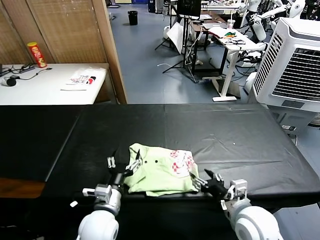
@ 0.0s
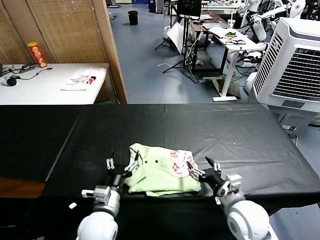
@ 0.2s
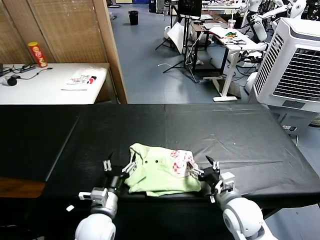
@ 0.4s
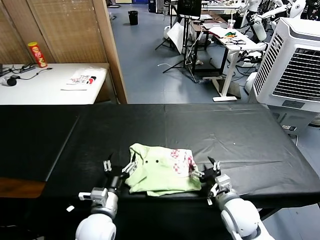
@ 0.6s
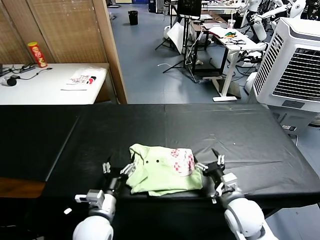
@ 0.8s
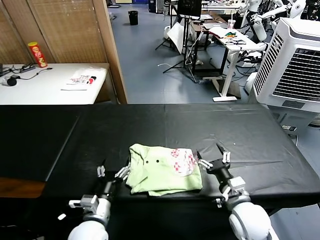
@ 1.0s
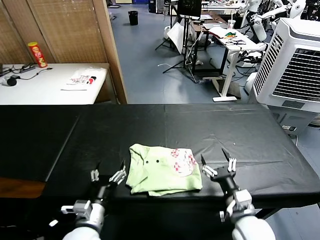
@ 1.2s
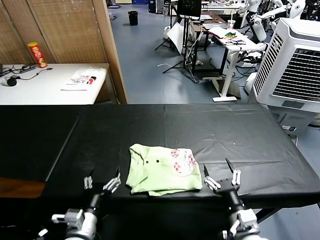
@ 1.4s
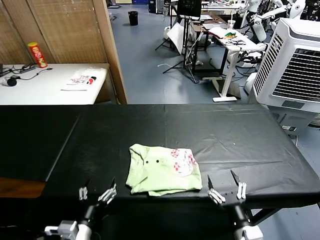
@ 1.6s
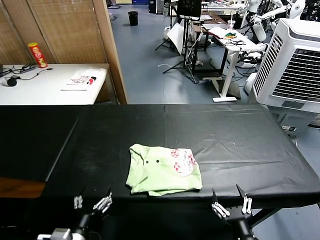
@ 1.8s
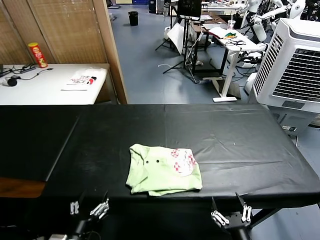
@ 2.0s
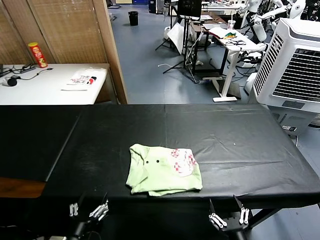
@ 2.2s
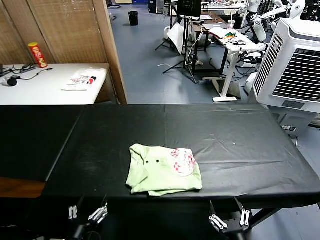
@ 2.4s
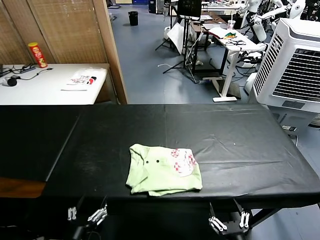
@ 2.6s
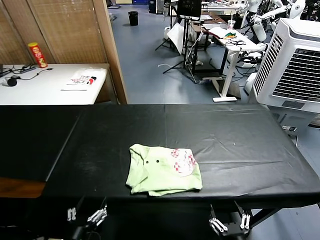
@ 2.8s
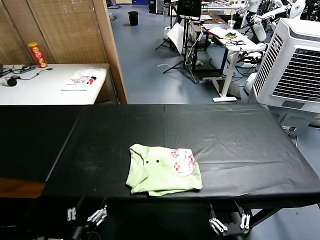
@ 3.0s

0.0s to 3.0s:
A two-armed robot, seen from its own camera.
Task of the whole recording: fold and organize the clothes.
0.0s to 1.6s: The left gripper moves backward and to the left, some 10 cm, while the right gripper travels backward and downward by about 10 cm.
1.6s to 3.0s: Both grippers travel together backward, about 5 cm.

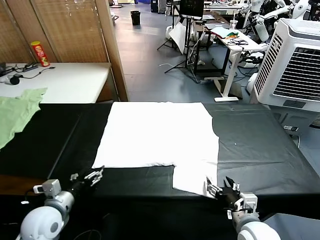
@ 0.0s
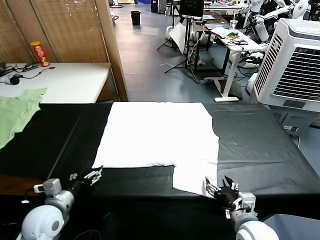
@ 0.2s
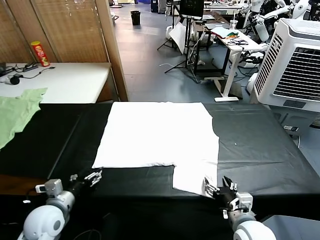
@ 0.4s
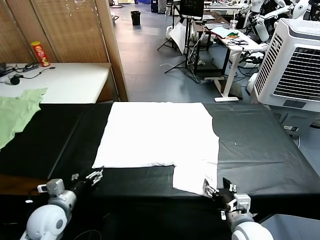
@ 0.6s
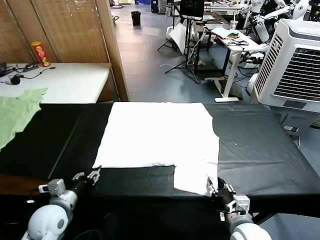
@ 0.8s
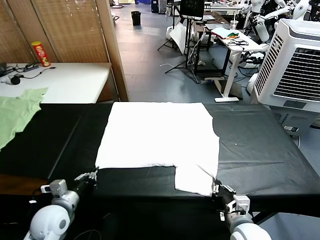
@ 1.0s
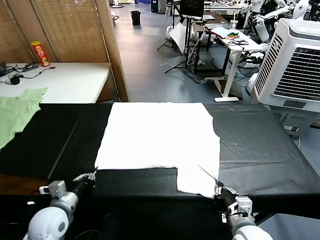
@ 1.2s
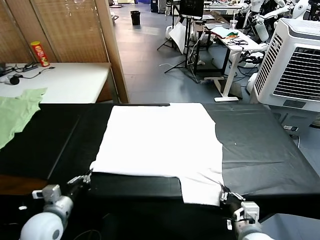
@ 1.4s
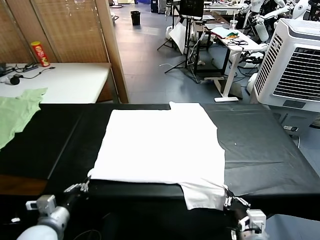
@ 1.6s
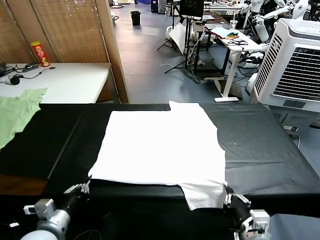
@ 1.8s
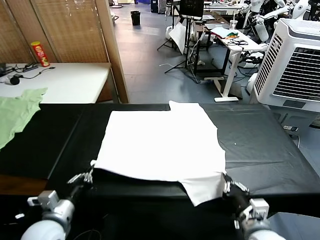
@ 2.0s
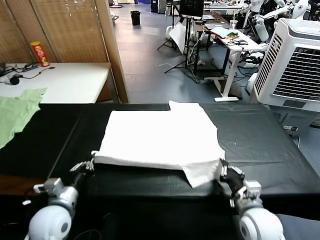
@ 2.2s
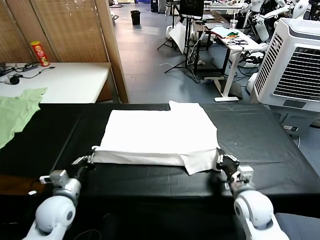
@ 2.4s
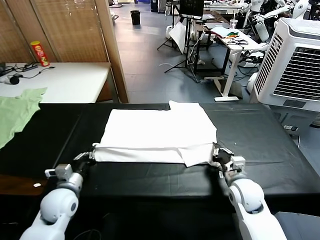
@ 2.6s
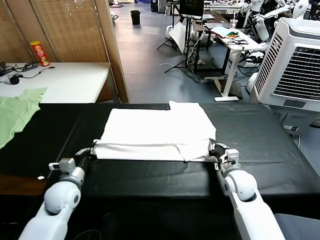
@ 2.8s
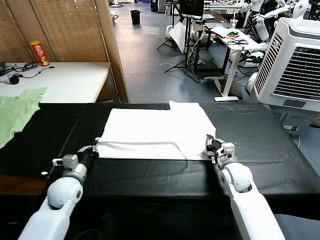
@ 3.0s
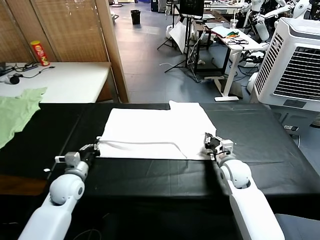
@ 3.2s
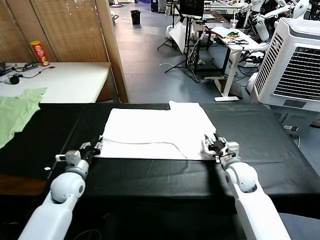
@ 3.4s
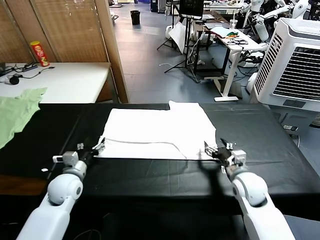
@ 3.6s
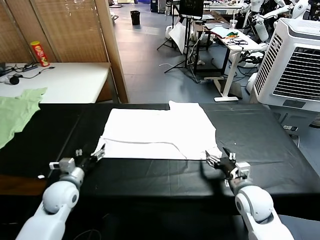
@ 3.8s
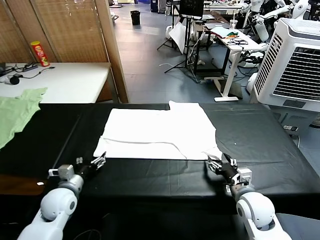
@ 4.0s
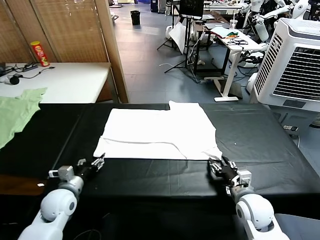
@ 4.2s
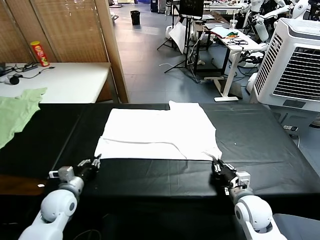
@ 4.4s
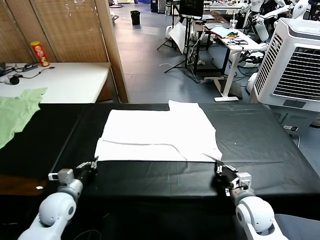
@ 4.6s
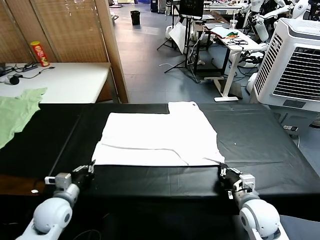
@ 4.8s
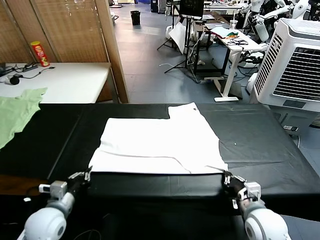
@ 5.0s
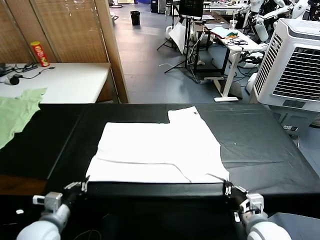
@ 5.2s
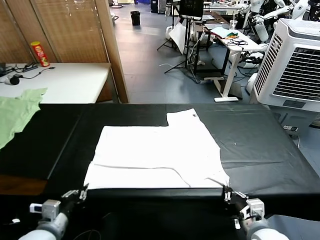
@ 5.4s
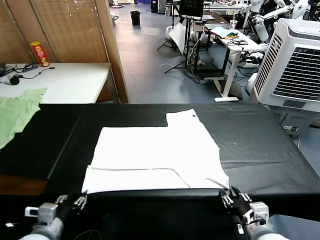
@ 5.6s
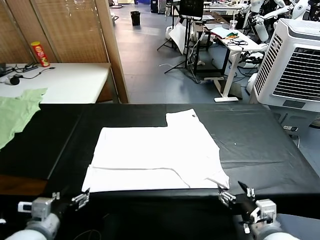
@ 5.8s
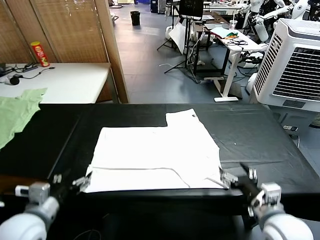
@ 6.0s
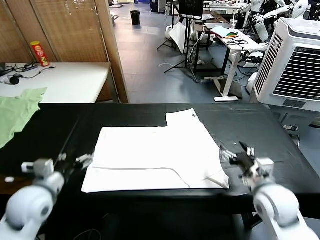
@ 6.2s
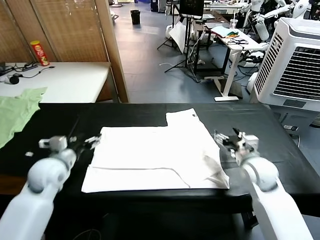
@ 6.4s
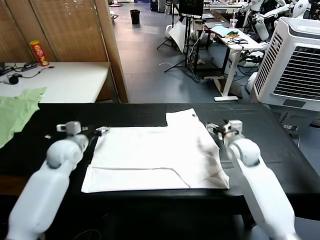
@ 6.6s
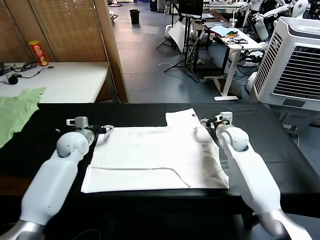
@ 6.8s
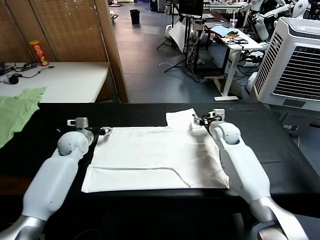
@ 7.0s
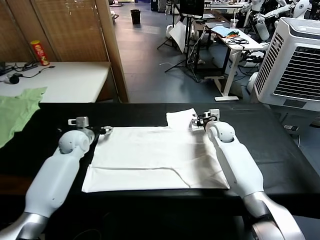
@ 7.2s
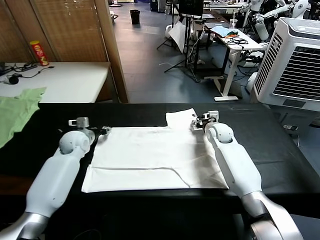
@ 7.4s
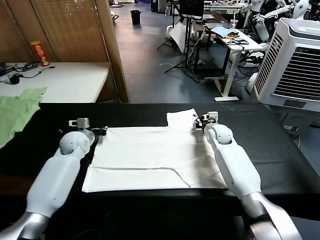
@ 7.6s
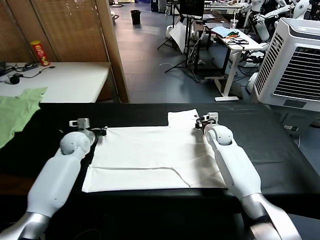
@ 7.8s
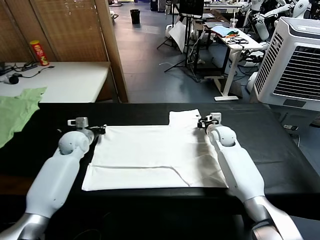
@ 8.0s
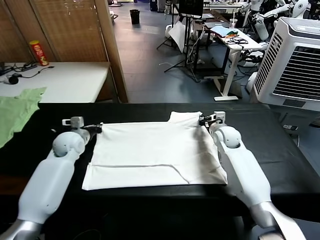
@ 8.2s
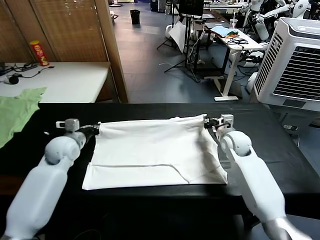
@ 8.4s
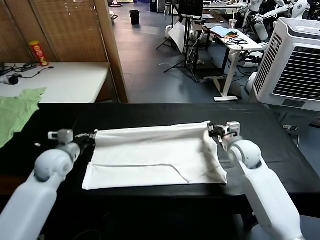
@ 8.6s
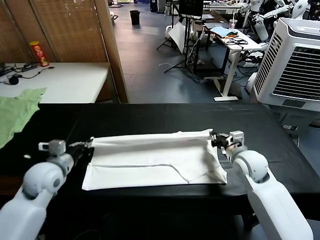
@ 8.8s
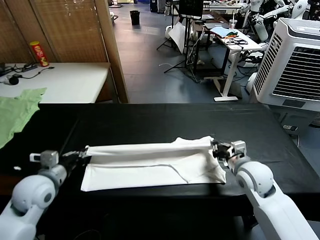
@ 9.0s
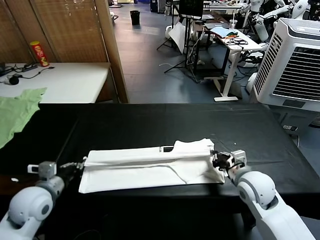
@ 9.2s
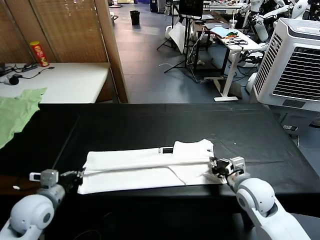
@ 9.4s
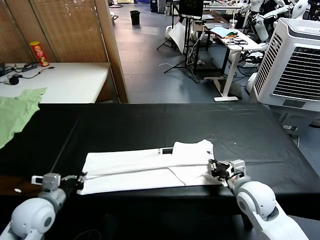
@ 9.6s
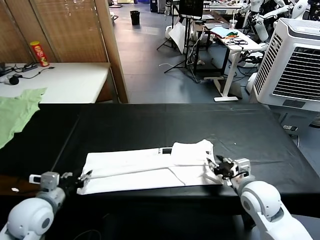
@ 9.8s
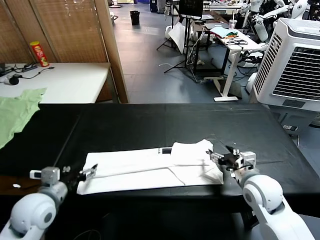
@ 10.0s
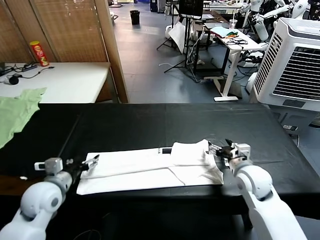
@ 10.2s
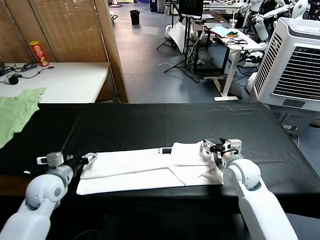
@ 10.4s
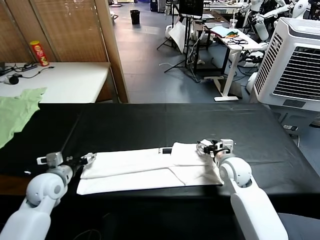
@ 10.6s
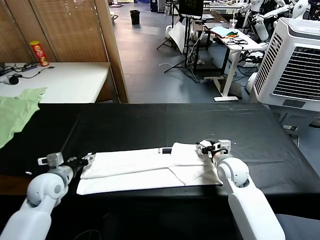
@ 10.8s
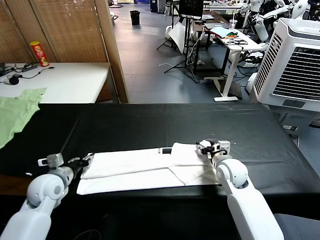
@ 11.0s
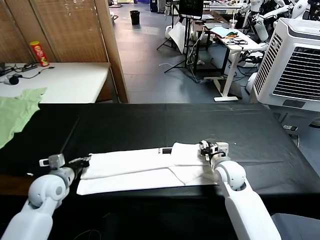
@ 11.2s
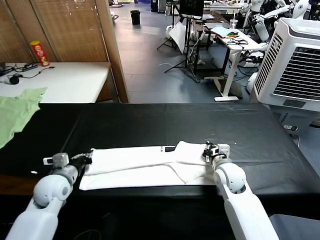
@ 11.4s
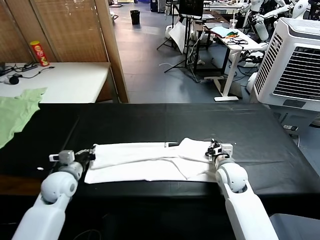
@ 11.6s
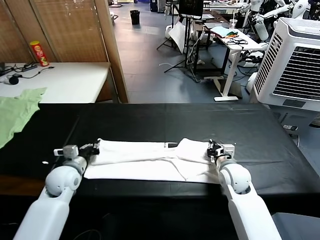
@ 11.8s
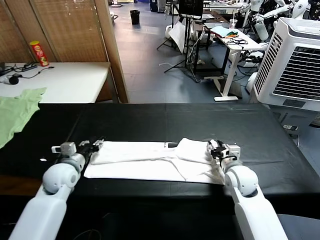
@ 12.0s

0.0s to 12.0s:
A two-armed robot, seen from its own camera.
Task of the whole recording: fold and organize the clothes.
Step, 0.0s to 1.0s: use both grippers simultaneously to clamp the lower edge of the clothing fabric.
Step, 1.4s to 3.6s: use both grippers to drag the lower edge of the fabric forward and fold it over the upper edge.
Step, 3.8s to 5.6s: Drag the clothes downward with both gripper.
Step, 6.0s to 7.6s: use both grippers simultaneously to clamp the upper edge of the clothing fabric.
Step, 7.8s to 9.8s: use both grippers to drag the upper edge of the fabric backward and fold it over the lower edge.
1.6s to 3.0s: The two grippers go approximately 20 cm forward.
3.0s to 4.4s: The left gripper travels backward by some 5 cm, and opens, then closes again, while the right gripper is displaced backward by about 15 cm, and opens, then closes once more.
4.4s to 6.0s: The left gripper heads upward and backward, covering some 15 cm, and opens; the right gripper moves upward, about 10 cm, reaches about 10 cm backward, then returns, and opens up.
6.0s to 7.6s: Both grippers move forward, roughly 25 cm. The left gripper closes its fingers. The right gripper closes.
7.6s to 9.0s: Both grippers travel together backward, about 25 cm.
9.0s to 10.4s: The left gripper changes place by some 5 cm, and opens. The right gripper moves forward, some 5 cm, and opens.
10.4s to 12.0s: The right gripper closes and opens again. Meanwhile the left gripper closes and opens again.

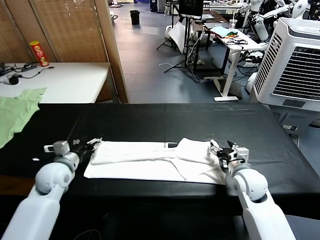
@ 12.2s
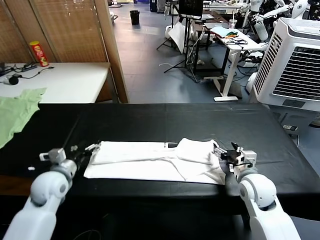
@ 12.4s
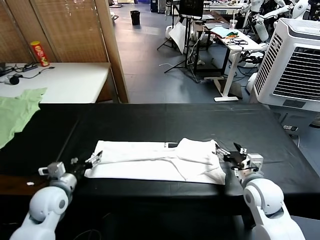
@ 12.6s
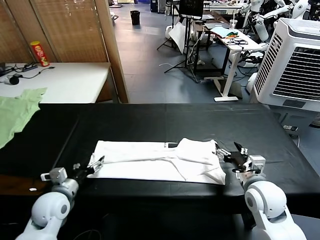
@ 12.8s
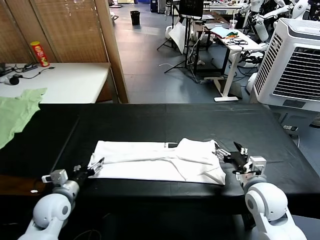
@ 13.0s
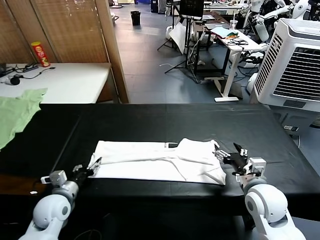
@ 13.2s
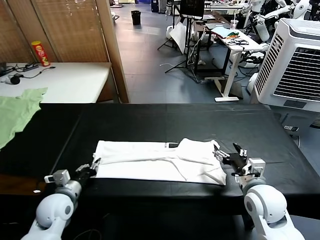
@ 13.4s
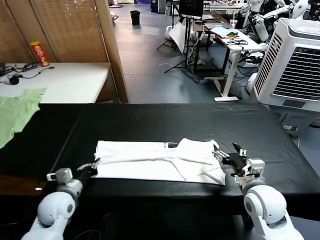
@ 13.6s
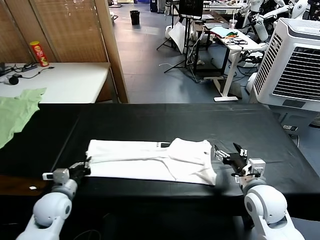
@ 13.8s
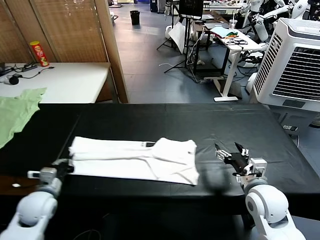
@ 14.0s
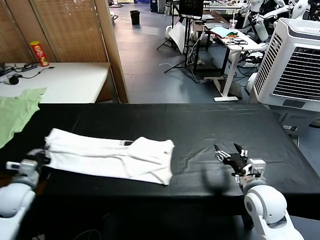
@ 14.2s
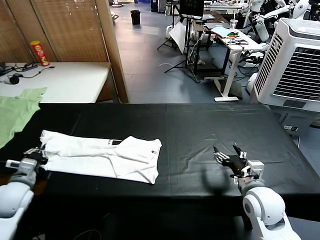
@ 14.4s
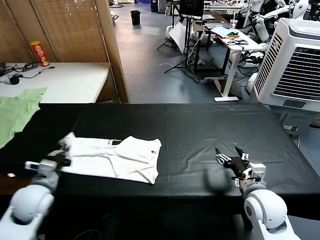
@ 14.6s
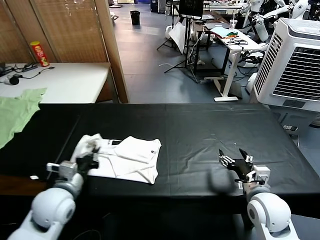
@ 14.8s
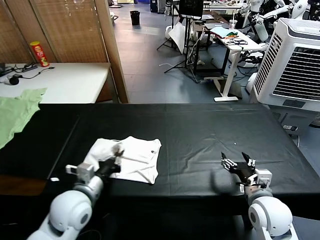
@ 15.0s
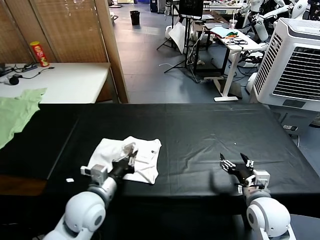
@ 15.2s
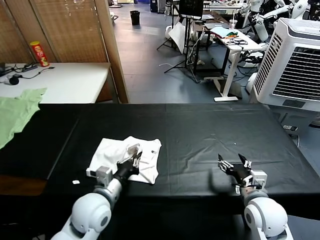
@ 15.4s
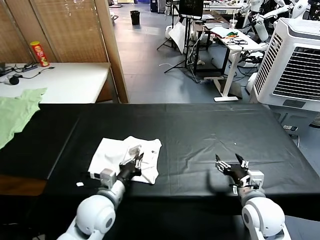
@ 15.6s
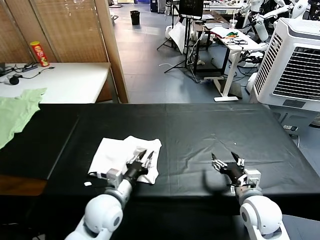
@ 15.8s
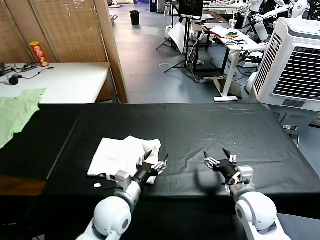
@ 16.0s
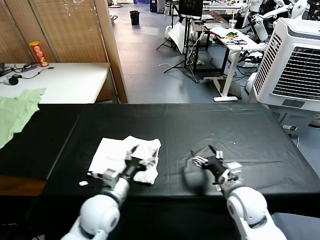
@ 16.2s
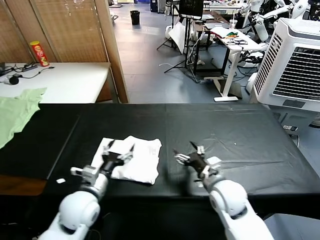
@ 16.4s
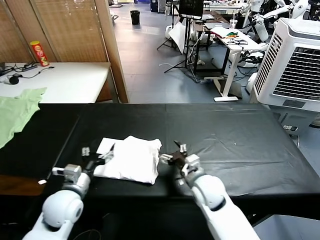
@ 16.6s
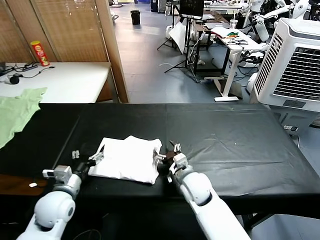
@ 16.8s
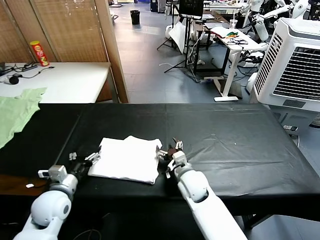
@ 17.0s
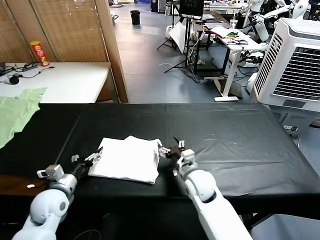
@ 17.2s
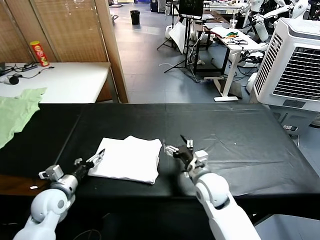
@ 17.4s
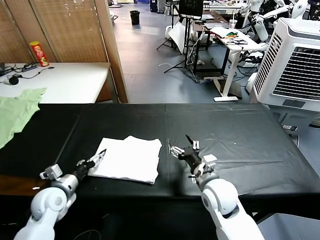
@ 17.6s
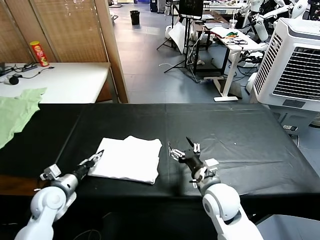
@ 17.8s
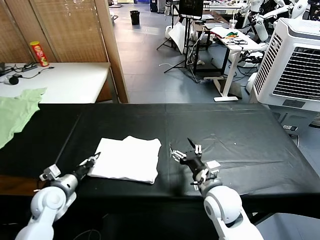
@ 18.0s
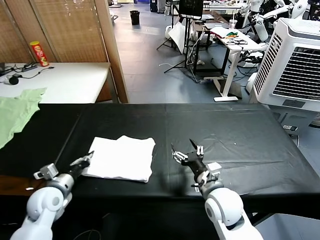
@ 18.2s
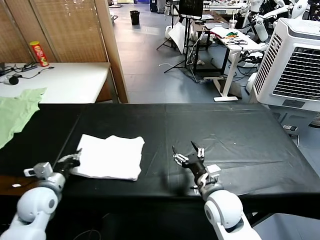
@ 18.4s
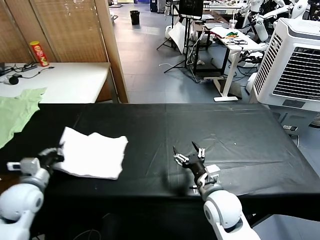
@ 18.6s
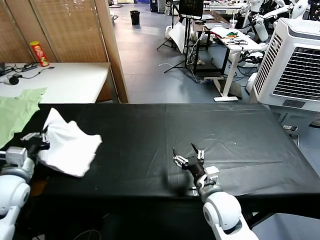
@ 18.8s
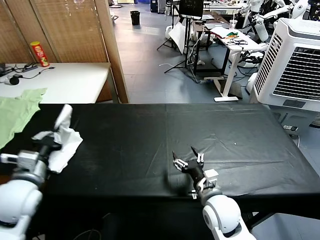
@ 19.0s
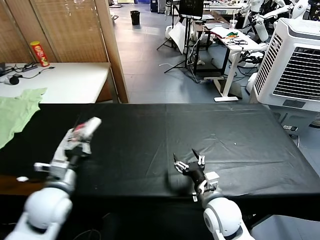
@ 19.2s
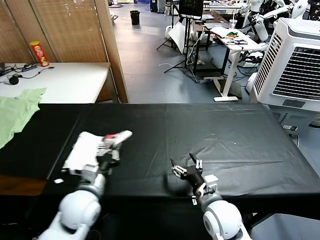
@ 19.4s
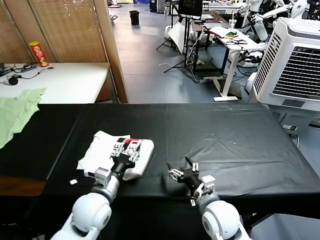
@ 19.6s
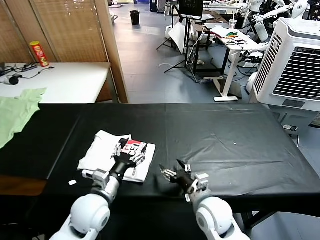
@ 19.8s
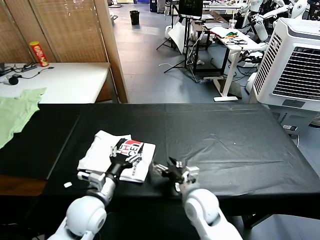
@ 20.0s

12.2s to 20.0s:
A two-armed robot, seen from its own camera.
Task of the whole recording: fold and organize the clothes.
Step, 13.6s to 15.8s: use the left gripper to drag the left edge of the fabric to the left and folds it over the right edge.
Step, 16.0s to 19.4s: Flip the folded clothes over with left gripper.
12.2s to 13.8s: The left gripper is displaced backward and downward by some 10 cm, and closes, while the right gripper heads backward, covering roughly 5 cm.
13.8s to 15.4s: The left gripper moves to the right, some 15 cm.
15.4s to 16.8s: The right gripper heads to the left and forward, covering roughly 20 cm, while the left gripper travels to the left by roughly 15 cm, and opens.
16.8s to 18.4s: The left gripper goes approximately 5 cm to the left, and closes. The right gripper shifts approximately 10 cm backward and to the right.
18.4s to 20.0s: The left gripper heads to the right, covering about 15 cm, and opens up. Meanwhile the right gripper is displaced to the left by roughly 5 cm.
